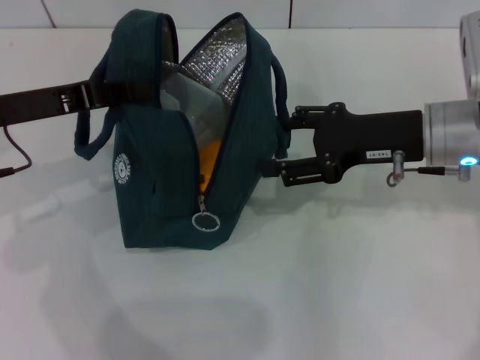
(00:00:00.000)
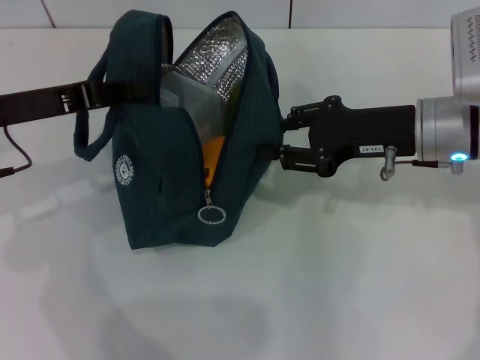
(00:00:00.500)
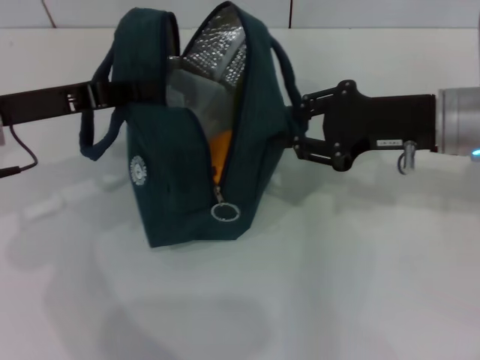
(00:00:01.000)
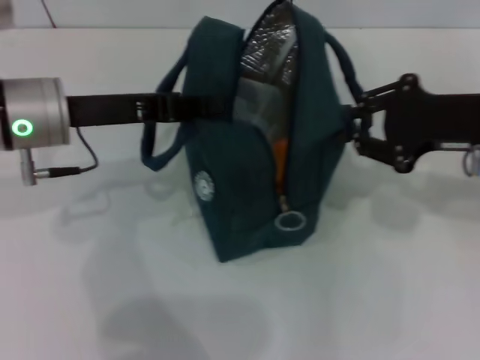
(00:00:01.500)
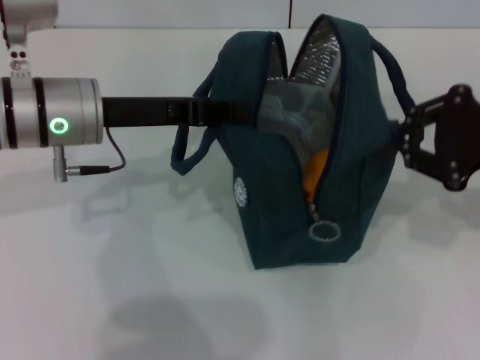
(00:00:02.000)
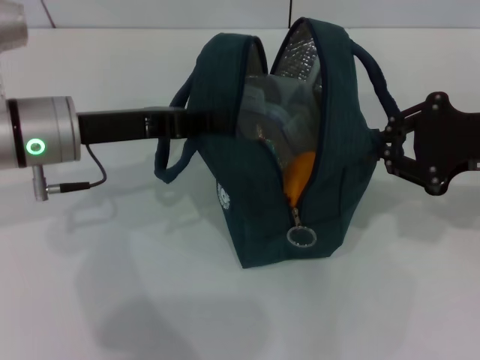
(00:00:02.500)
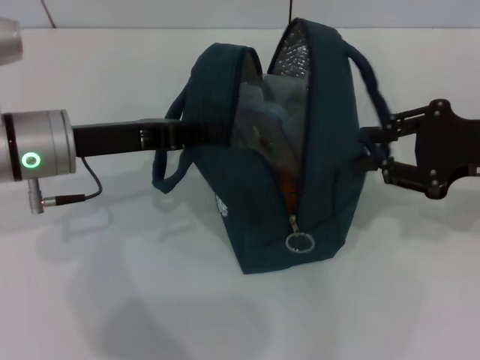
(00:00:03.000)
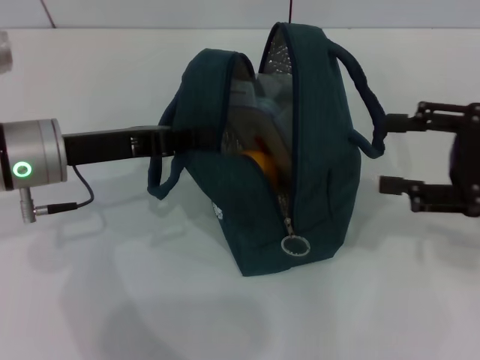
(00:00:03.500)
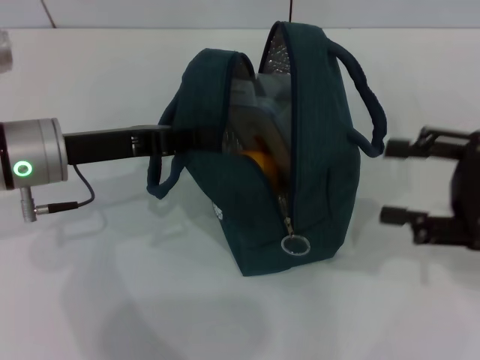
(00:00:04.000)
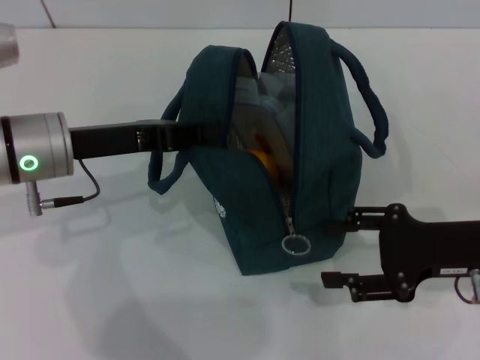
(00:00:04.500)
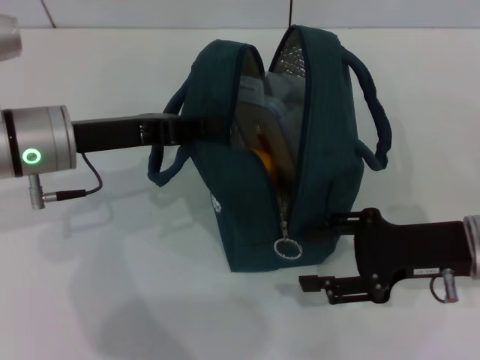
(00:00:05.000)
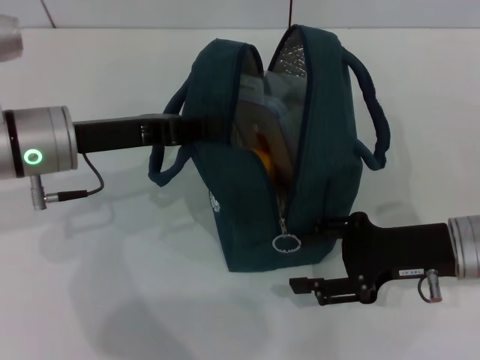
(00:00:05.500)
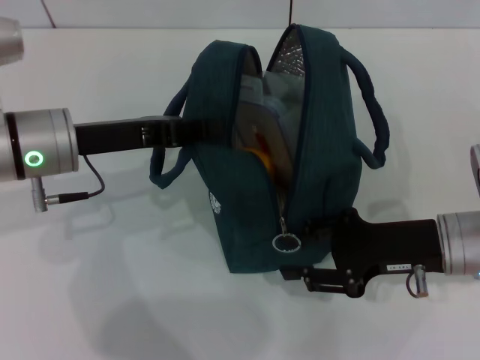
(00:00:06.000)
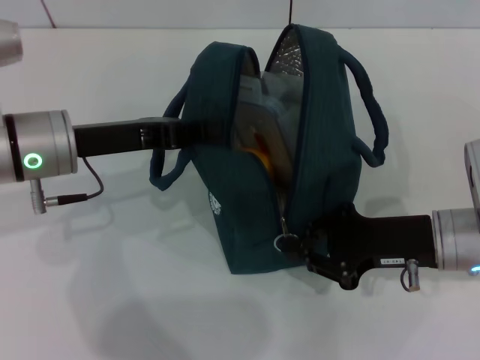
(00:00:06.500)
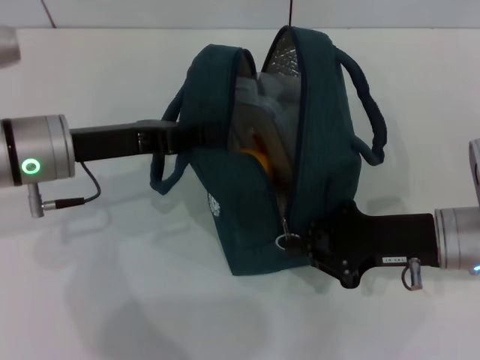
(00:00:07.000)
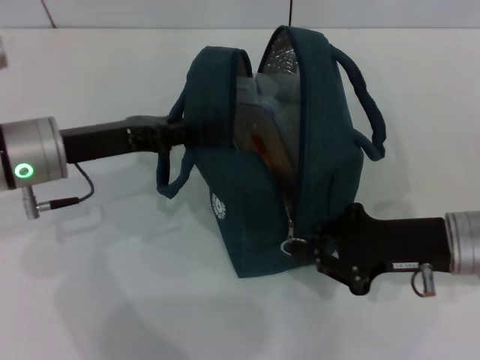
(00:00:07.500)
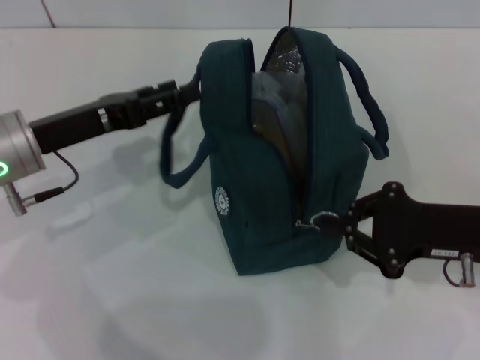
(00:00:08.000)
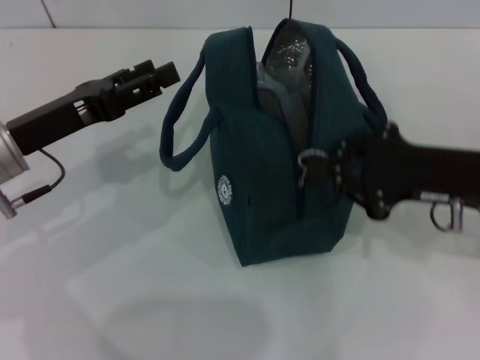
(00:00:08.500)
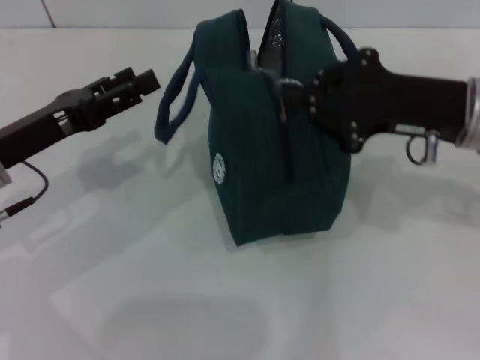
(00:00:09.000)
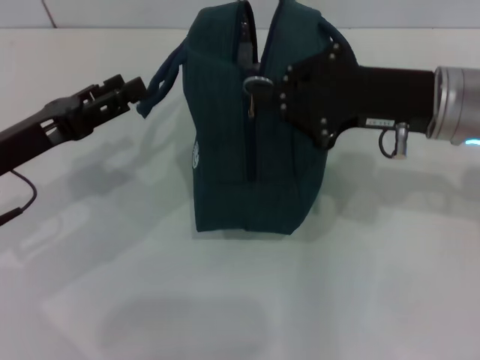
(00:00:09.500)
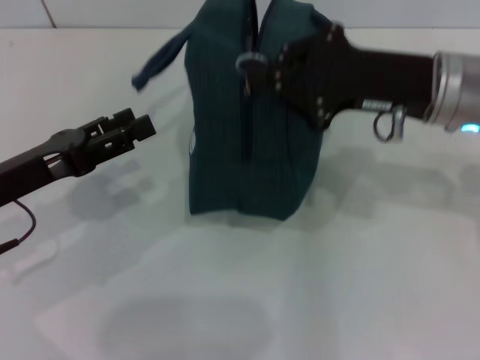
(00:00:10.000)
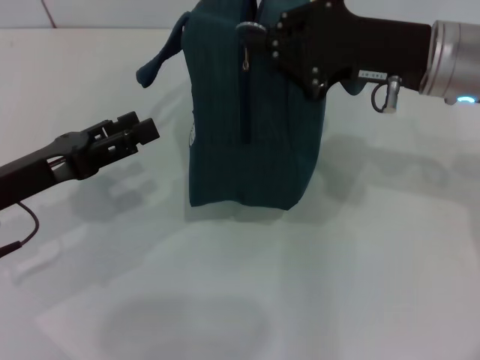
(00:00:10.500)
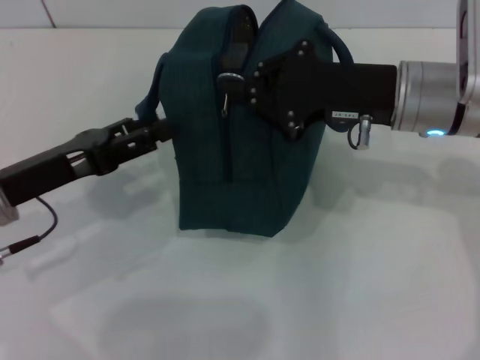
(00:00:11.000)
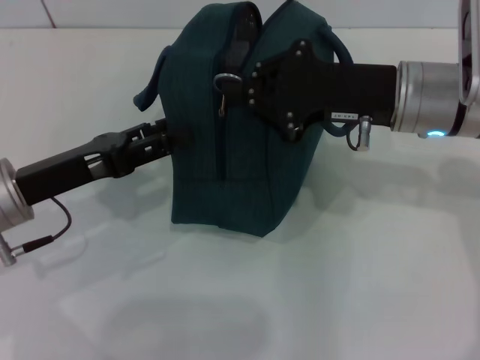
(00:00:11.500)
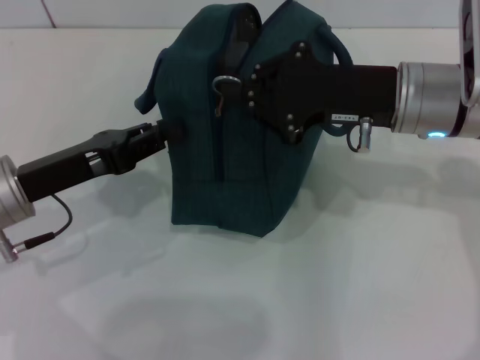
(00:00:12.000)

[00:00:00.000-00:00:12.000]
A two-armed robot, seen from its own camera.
Step, 00:00:00.000 to 00:00:03.000: Hold the lunch bag with your right hand.
Step, 00:00:03.500 to 00:00:07.500: Hold the lunch bag with your left hand.
00:00:00.000 to 00:00:02.000: Both grippers travel together to the right, about 10 cm. The right gripper closes up.
00:00:02.000 to 00:00:04.000: The right gripper changes place by approximately 5 cm, and opens.
00:00:04.000 to 00:00:06.000: The right gripper is displaced downward and to the left by roughly 10 cm.
00:00:06.000 to 00:00:08.000: The left gripper opens its fingers, while the right gripper closes.
00:00:08.000 to 00:00:10.000: The left gripper goes about 5 cm backward. Meanwhile the right gripper shifts roughly 15 cm upward, forward and to the left.
00:00:10.000 to 00:00:12.000: The left gripper closes up.

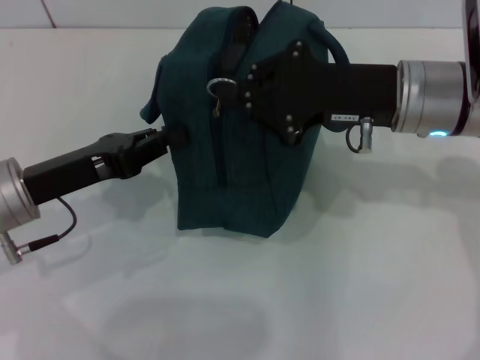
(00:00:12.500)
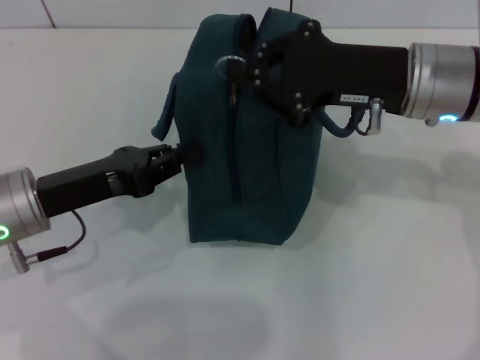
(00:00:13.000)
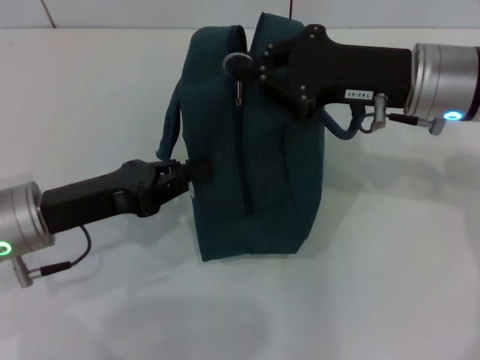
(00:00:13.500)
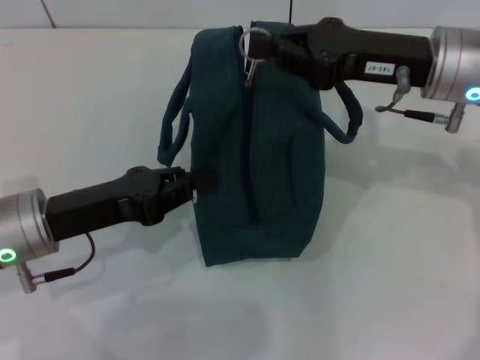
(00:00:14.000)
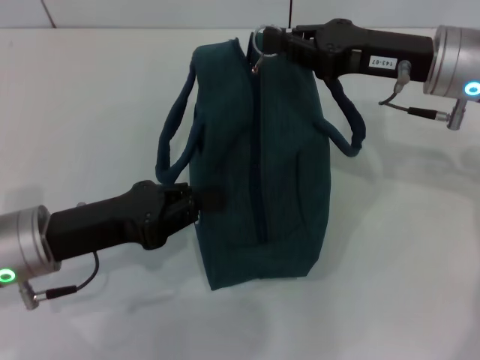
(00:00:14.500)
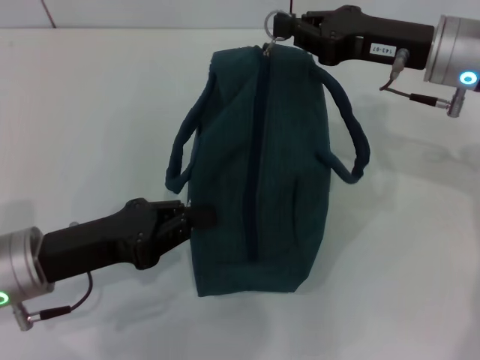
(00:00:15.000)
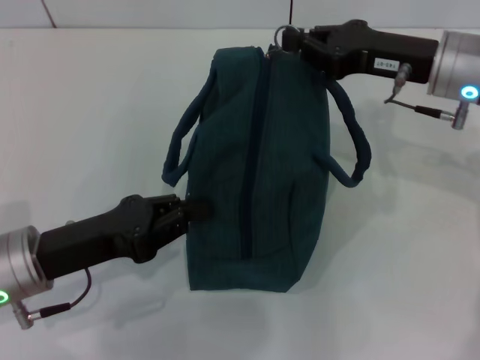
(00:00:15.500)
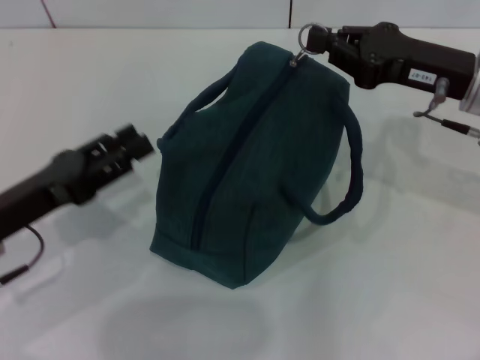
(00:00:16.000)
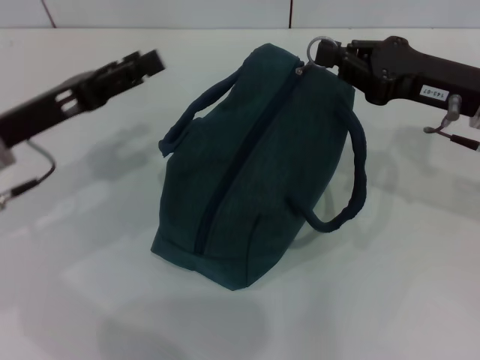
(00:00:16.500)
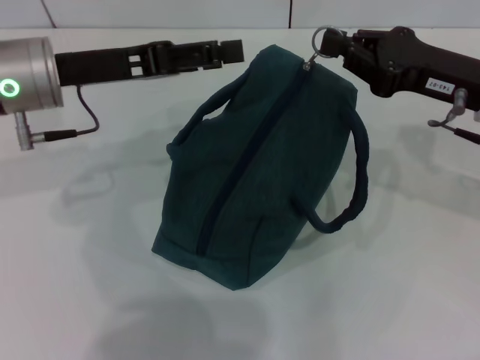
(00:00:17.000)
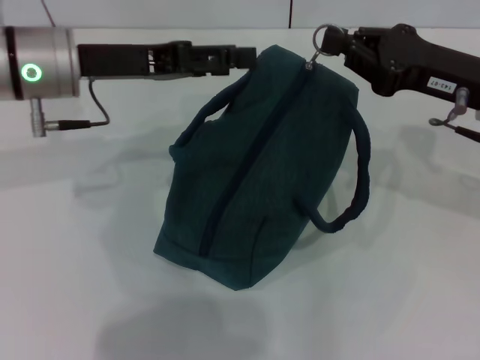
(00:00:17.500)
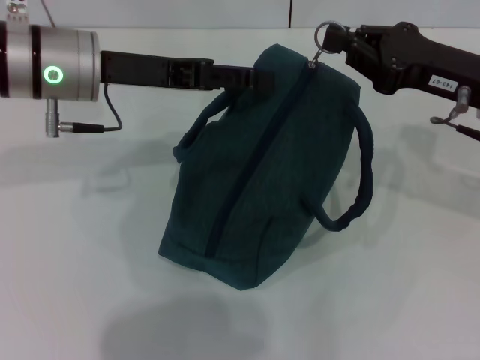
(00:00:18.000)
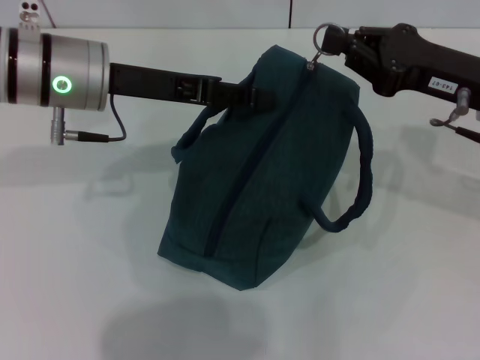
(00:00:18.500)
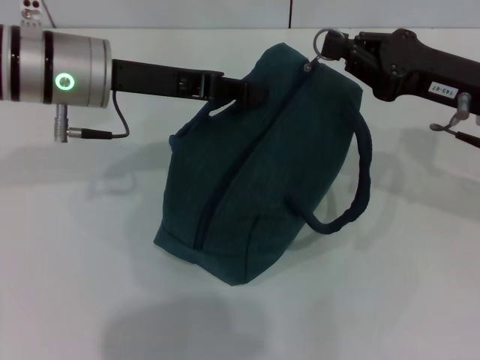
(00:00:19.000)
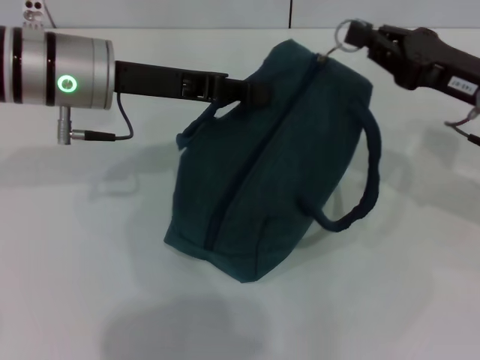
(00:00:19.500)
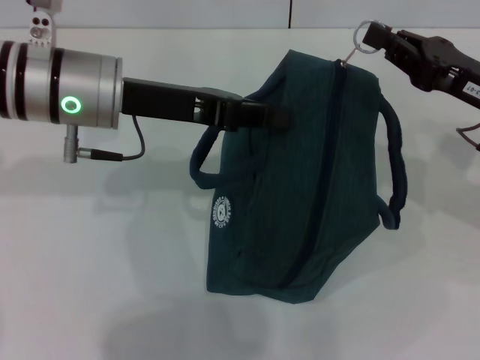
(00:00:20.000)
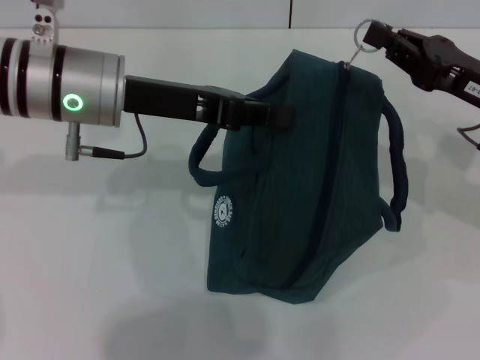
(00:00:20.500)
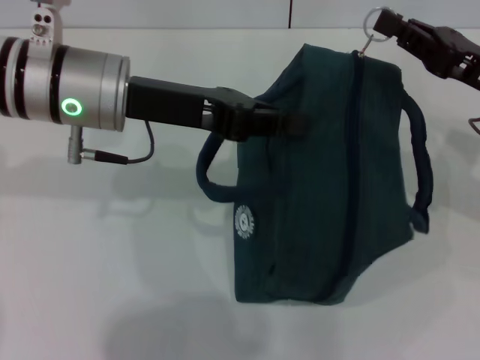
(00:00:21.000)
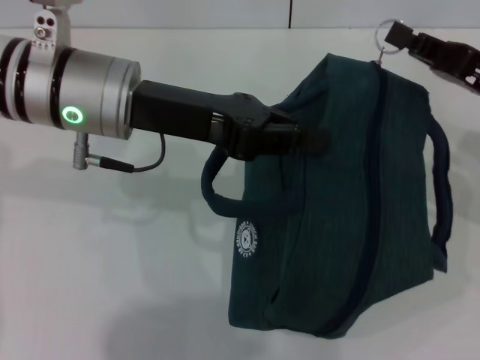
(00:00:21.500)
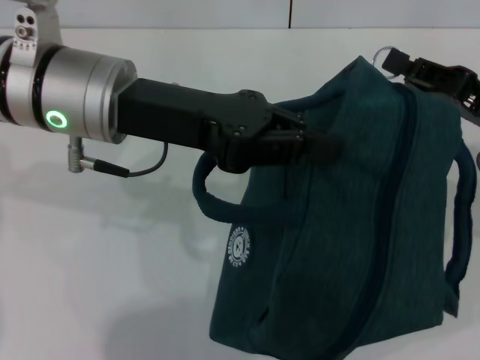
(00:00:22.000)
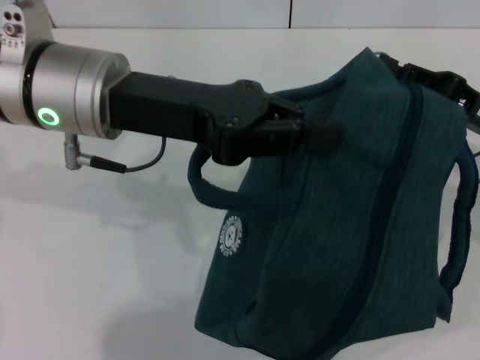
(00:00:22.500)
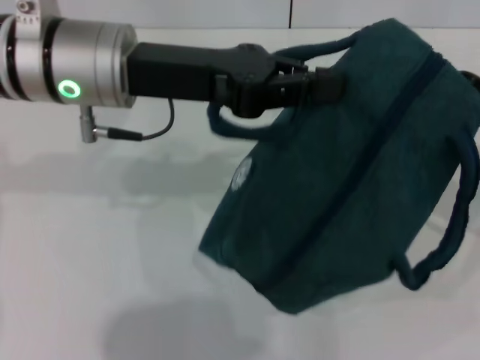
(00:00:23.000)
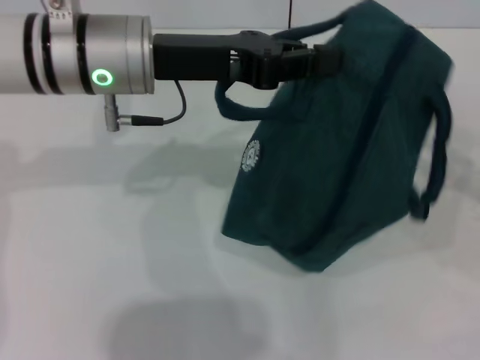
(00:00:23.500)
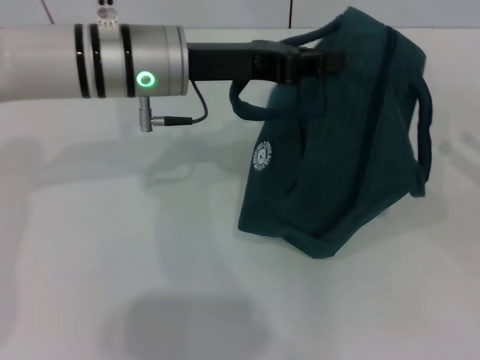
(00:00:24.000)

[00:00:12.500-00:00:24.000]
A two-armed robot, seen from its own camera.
Step, 00:00:12.500 to 00:00:22.500: Zip up the lunch bag with your right hand.
00:00:14.500 to 00:00:16.500: The left gripper is displaced forward by about 5 cm, and opens its fingers; the right gripper moves about 5 cm.
00:00:16.500 to 00:00:18.500: The left gripper goes about 10 cm to the right, forward and upward.
00:00:18.500 to 00:00:20.000: The left gripper closes its fingers.
00:00:22.000 to 00:00:24.000: The left gripper goes approximately 5 cm forward. The right gripper travels to the right and backward by approximately 15 cm, and opens its fingers.

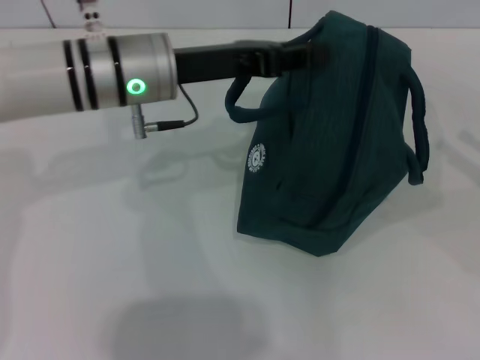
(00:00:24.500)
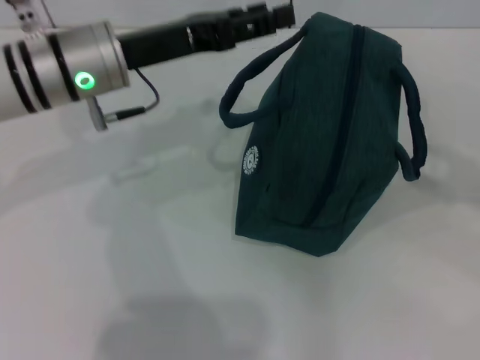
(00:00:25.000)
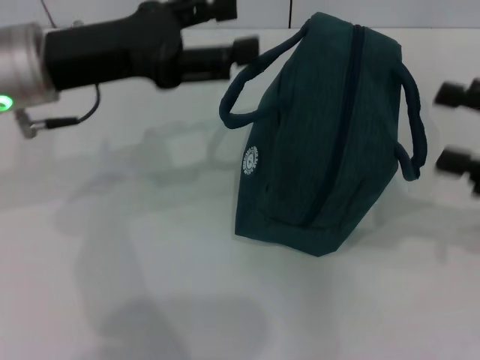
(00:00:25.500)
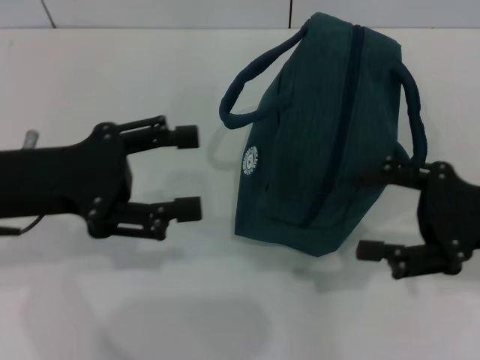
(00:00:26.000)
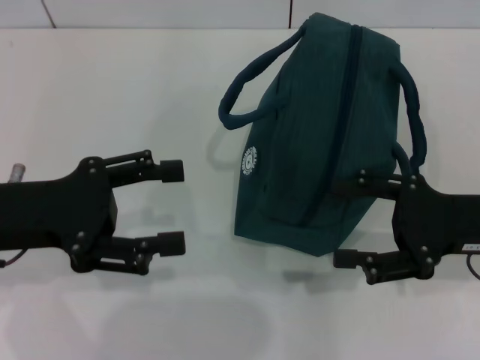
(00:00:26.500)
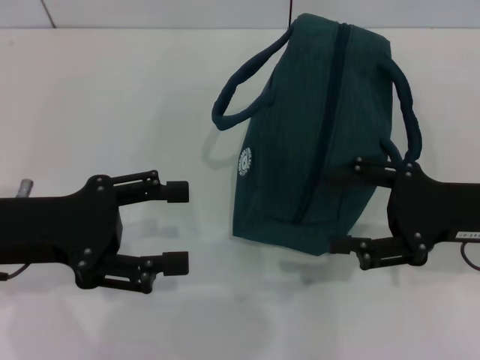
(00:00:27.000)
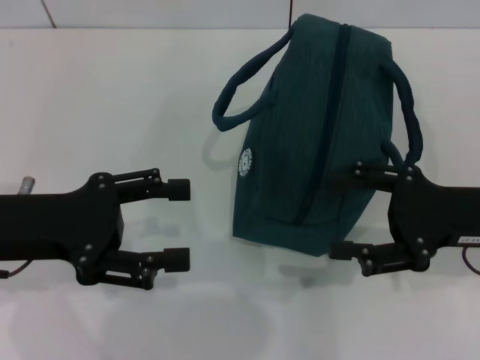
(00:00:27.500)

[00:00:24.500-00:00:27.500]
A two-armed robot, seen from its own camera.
00:00:24.500 to 00:00:26.000: The left gripper moves to the left and backward, some 15 cm, and opens up. Meanwhile the right gripper moves to the left, approximately 15 cm.
